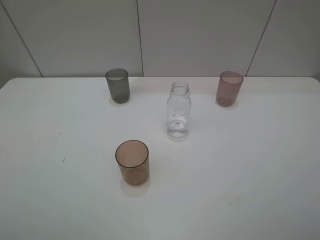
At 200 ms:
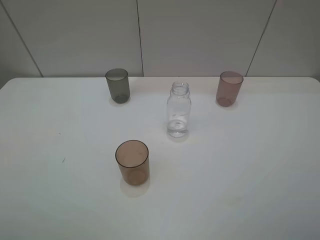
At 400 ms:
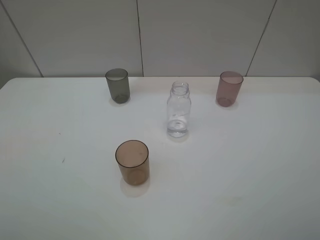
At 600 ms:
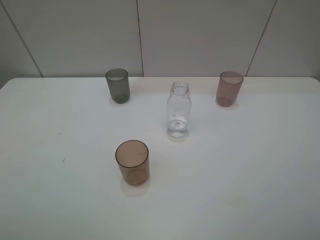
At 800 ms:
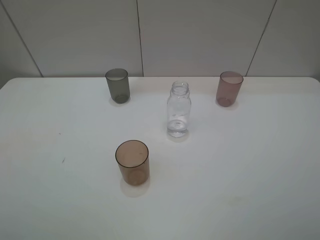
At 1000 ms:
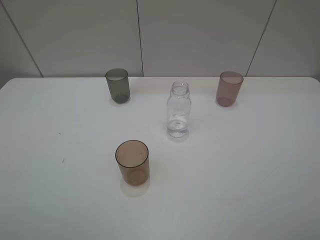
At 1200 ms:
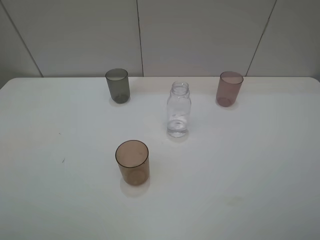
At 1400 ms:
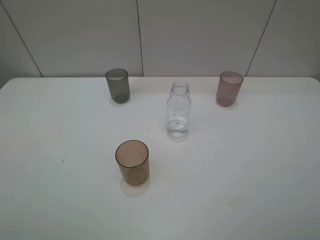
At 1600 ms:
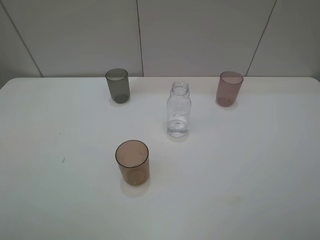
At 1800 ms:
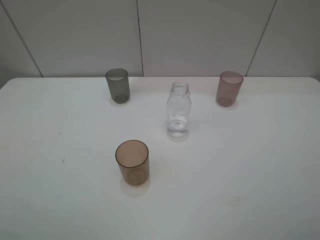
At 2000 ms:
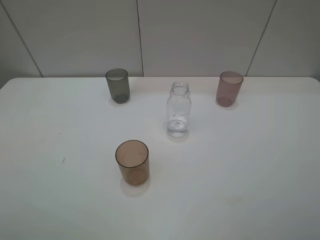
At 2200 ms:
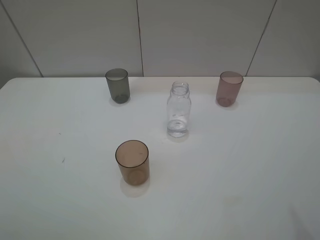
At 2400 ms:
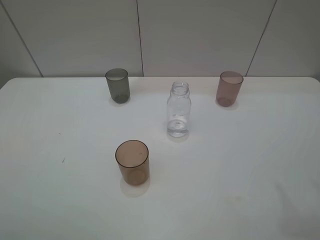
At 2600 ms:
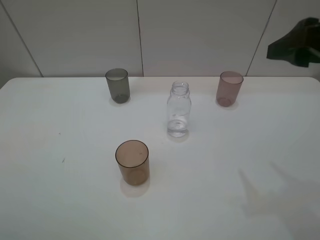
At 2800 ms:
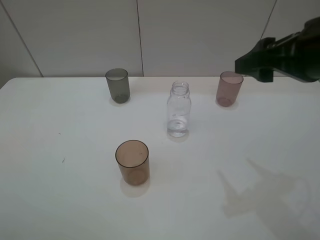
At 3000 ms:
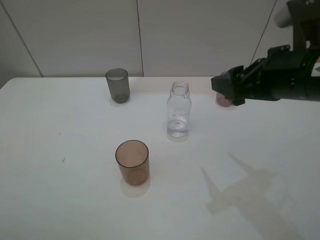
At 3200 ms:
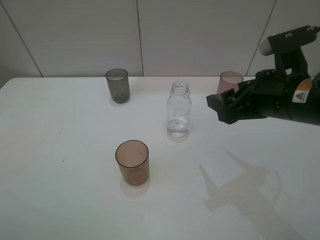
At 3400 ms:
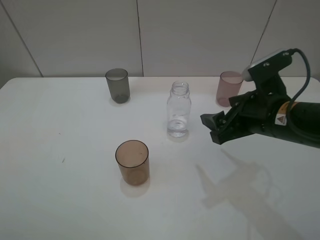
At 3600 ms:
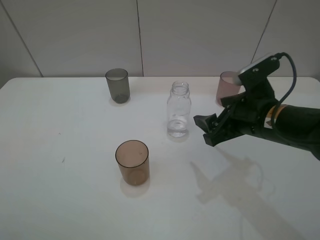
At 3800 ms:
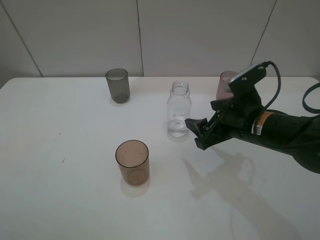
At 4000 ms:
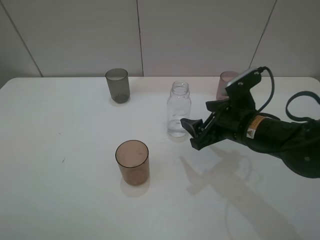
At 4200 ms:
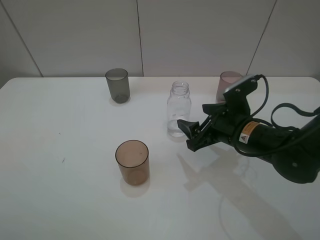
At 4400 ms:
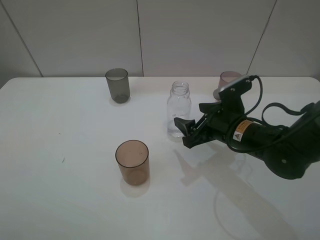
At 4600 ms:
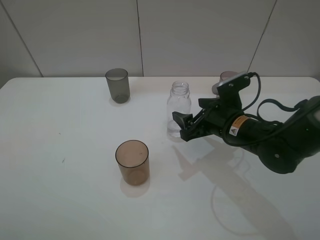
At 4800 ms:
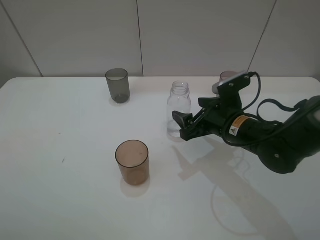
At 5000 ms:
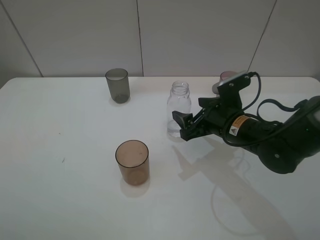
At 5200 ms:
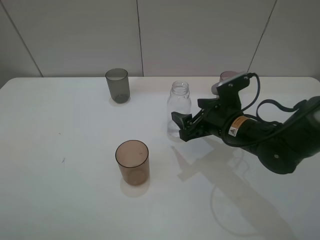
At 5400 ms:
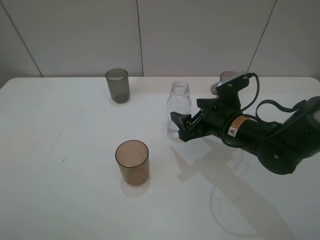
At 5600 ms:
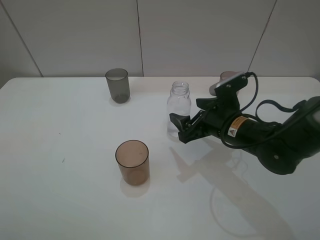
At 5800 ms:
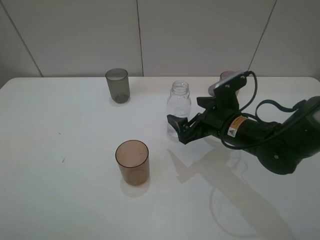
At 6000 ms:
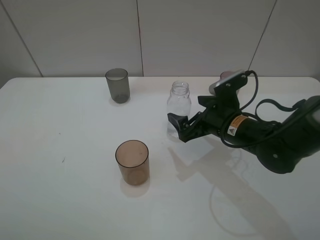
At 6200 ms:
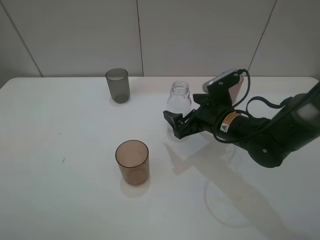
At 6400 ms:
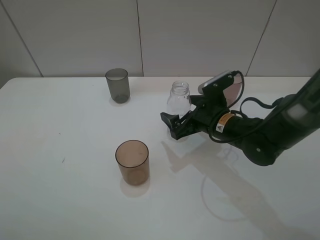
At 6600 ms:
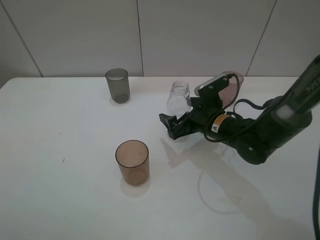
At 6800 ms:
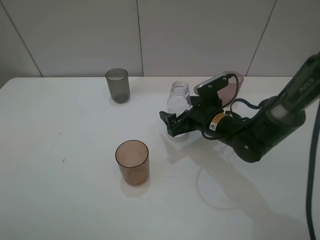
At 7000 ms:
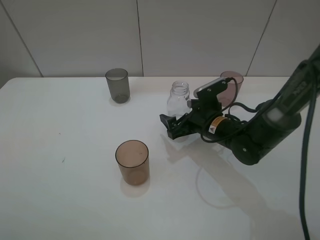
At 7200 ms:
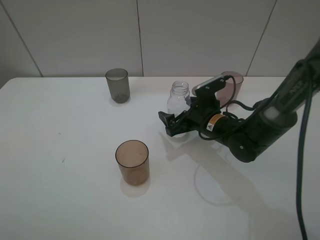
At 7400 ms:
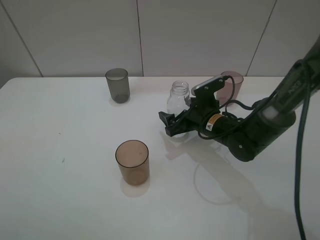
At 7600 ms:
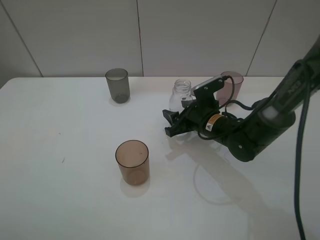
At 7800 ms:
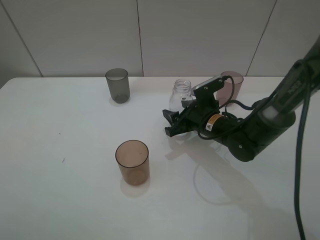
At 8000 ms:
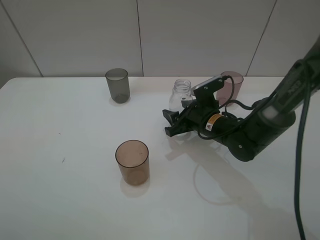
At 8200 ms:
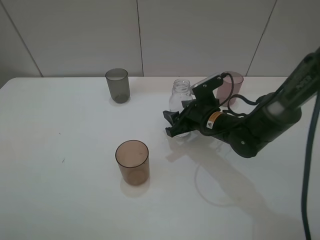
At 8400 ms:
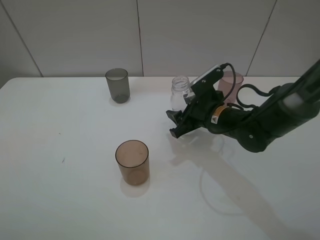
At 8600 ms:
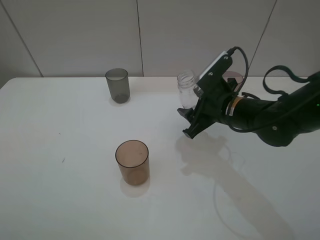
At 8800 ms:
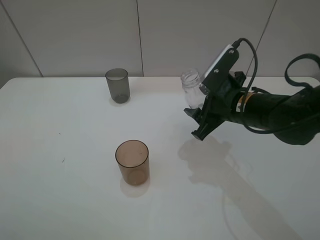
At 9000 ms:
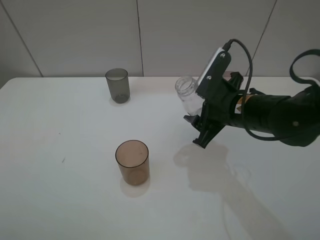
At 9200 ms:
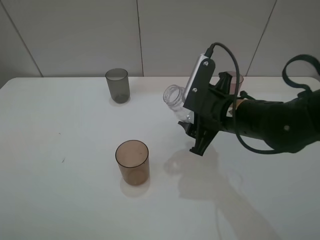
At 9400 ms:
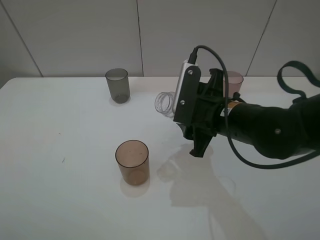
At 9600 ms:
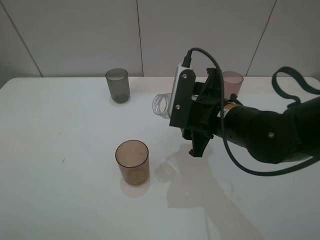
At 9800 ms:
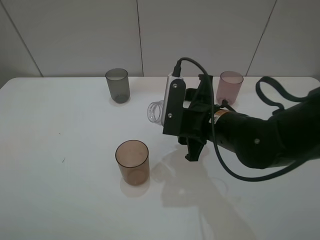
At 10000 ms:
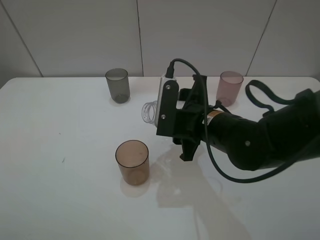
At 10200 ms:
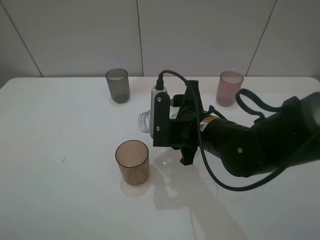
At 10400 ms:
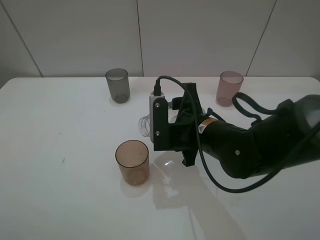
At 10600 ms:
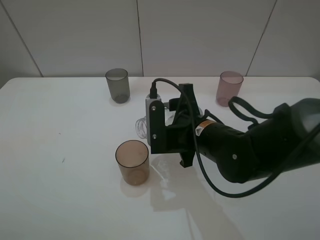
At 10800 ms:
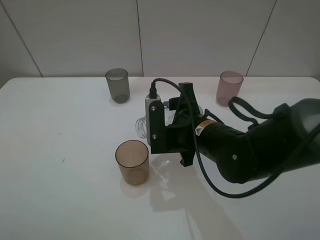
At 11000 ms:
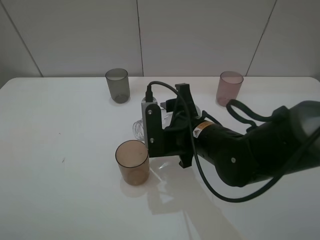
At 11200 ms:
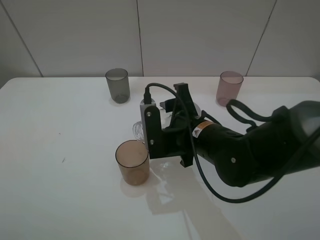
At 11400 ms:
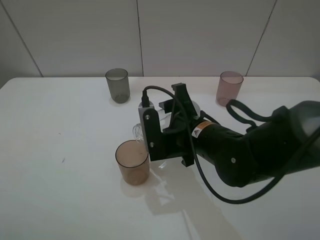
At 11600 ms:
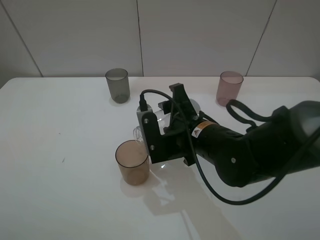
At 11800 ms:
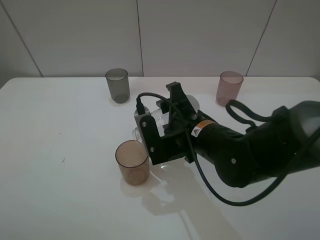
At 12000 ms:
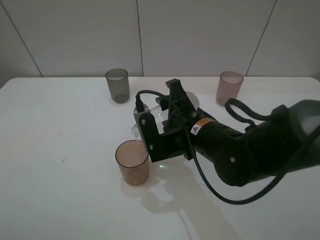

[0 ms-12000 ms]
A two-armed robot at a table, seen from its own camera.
Task of the whole recording: pick up the bottle filled with water and pour water into the middle cup of the three cups.
Step, 0 ms to 7600 ms: Grasp the transparent bottle with the right gripper.
0 ms to 1600 ms: Both grippers stay put.
1600 ms to 3000 ms: The right gripper goes roughly 25 cm forward and to the left.
3000 ms to 4400 ms: The right gripper moves downward, some 15 cm.
4400 ms to 6000 ms: The right gripper opens.
6000 ms to 7600 ms: The right gripper changes place by some 5 cm, and closes.
7600 ms to 9000 ms: The right gripper shifts roughly 10 cm upward and backward.
9000 ms to 10400 ms: The right gripper shifts roughly 5 cm to the left.
10400 ms to 12000 ms: There are only small adjustments of the grippers.

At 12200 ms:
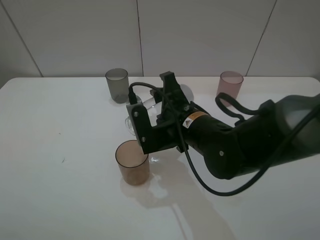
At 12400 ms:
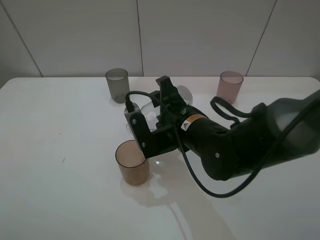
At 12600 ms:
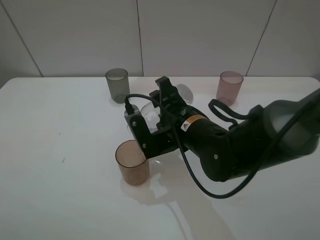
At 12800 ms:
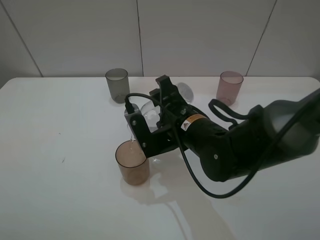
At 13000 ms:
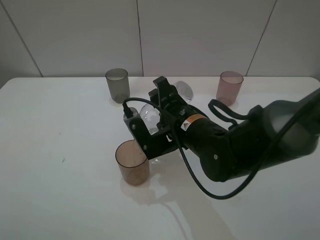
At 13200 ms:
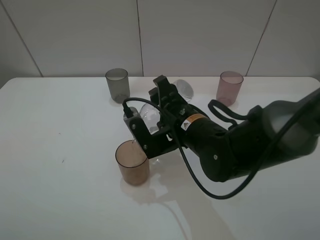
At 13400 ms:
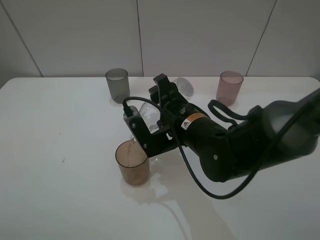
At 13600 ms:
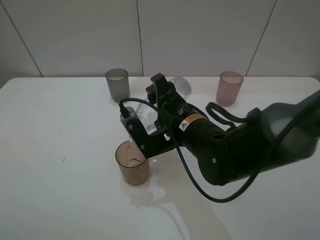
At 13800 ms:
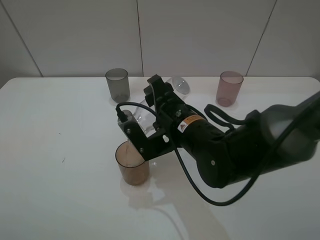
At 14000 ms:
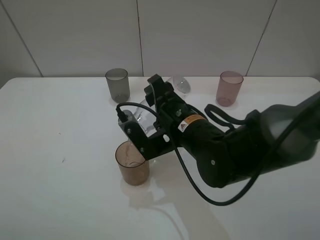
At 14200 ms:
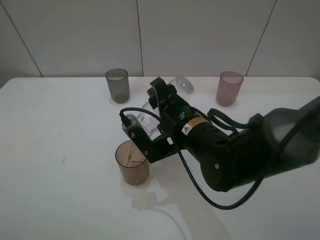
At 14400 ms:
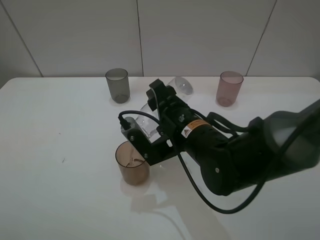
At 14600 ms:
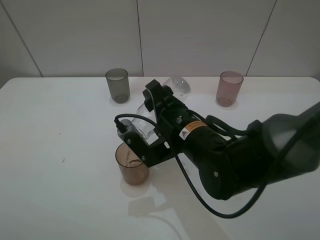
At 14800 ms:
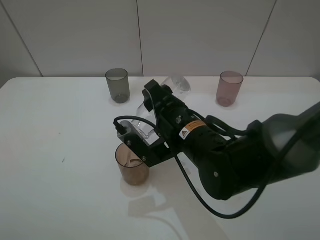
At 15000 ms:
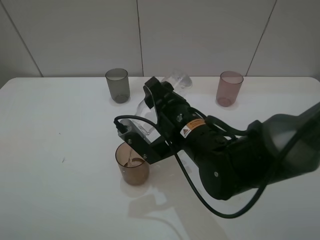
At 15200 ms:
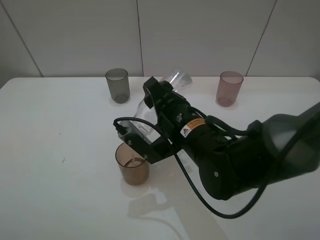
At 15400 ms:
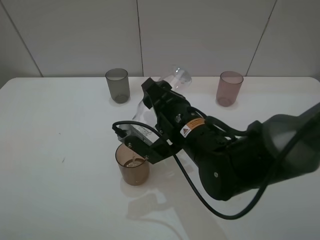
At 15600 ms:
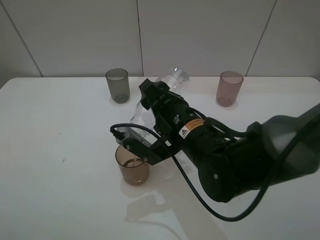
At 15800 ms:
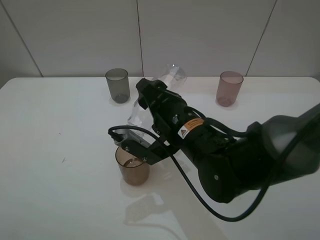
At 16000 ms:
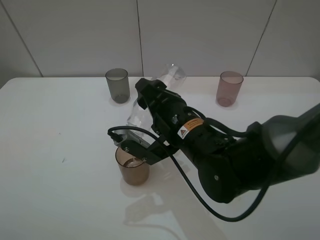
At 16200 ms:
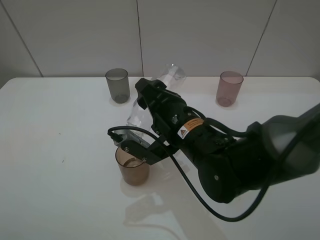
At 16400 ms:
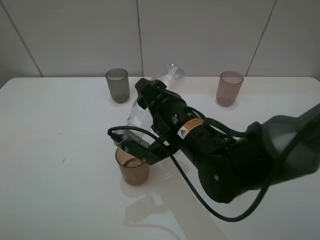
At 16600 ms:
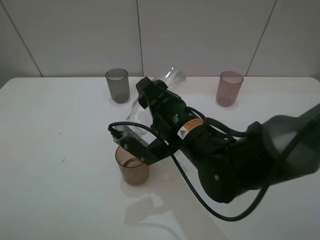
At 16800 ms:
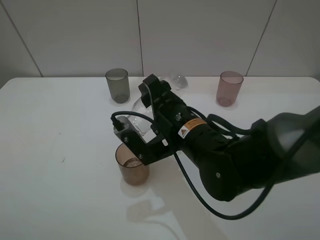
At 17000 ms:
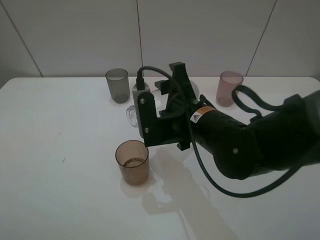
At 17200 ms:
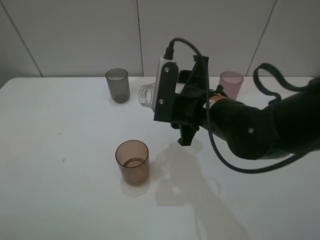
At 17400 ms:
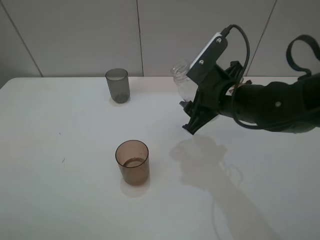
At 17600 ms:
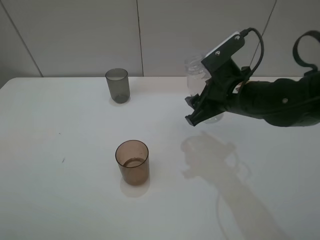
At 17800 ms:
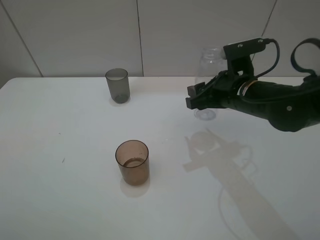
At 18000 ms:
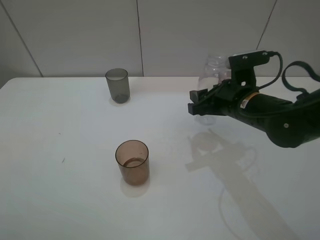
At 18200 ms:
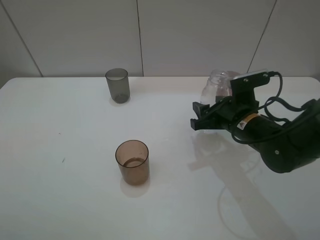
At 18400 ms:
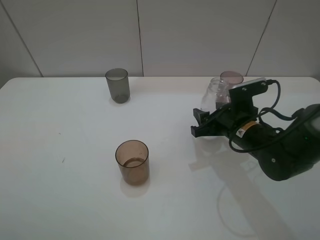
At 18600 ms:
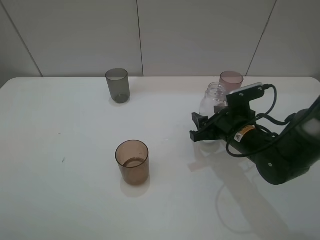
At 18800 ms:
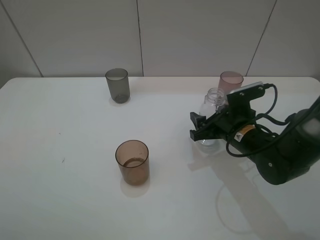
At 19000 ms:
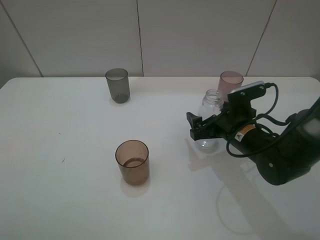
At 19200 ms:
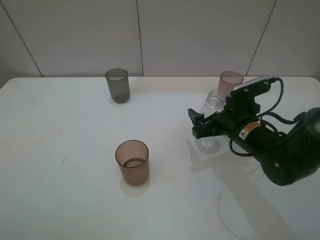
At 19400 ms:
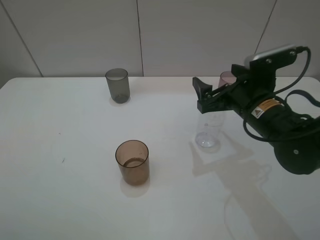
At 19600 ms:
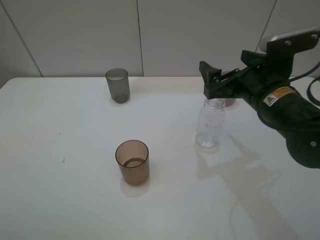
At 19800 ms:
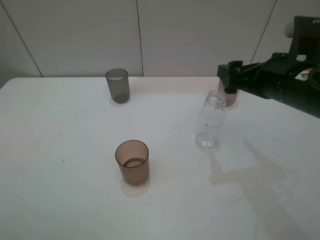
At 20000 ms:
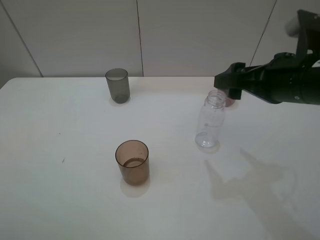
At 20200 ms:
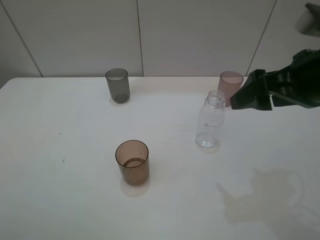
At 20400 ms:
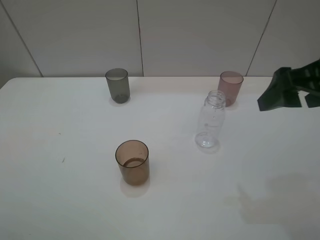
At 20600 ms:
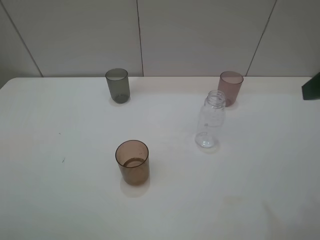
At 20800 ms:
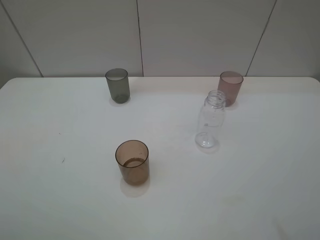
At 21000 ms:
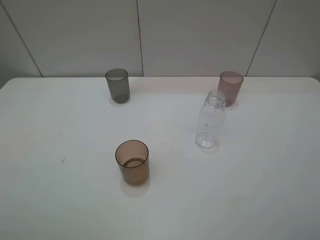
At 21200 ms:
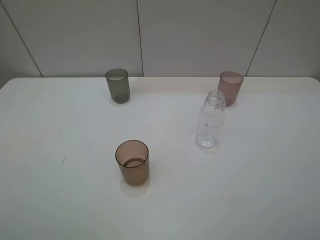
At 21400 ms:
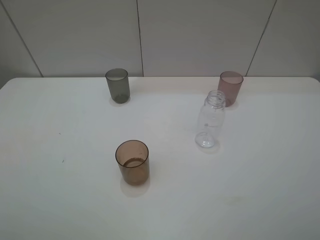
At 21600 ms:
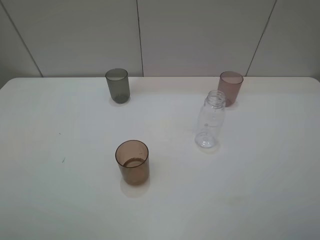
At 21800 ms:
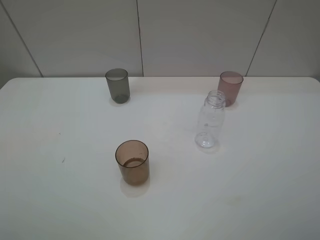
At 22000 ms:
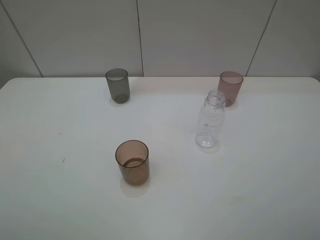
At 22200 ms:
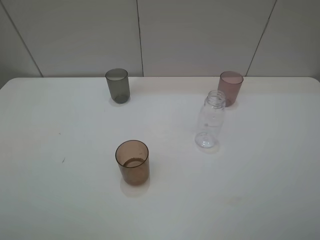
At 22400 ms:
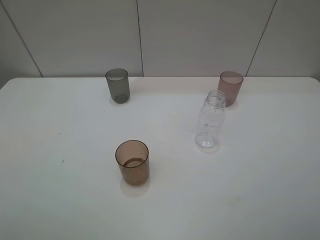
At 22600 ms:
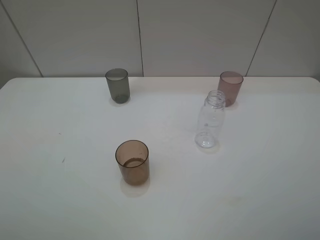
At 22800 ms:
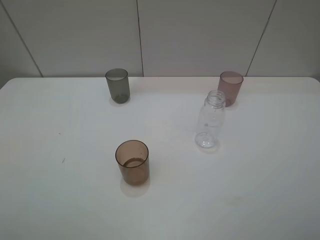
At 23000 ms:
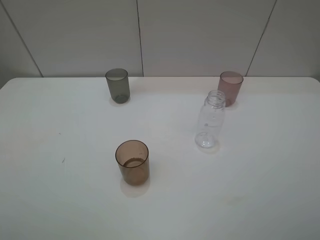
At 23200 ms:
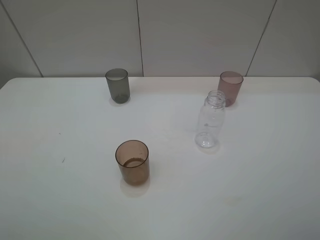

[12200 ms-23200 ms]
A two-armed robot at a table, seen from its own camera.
Task of the whole recording: pick up the bottle filled with water and pour water into the middle cup of the three cups.
Step, 12200 ms to 17200 ms: Pour water from transparent bottle tobrown cup with the right gripper.
Step, 17400 ms to 20000 ms: Place the transparent bottle with the right gripper.
12200 ms to 13800 ms: There are only small adjustments of the grippers.
13800 ms to 15400 ms: The grippers make only small movements.
17000 ms to 18400 ms: The right gripper moves to the right and downward, roughly 15 cm.
18400 ms to 20000 ms: The right gripper goes approximately 15 cm upward, and opens its fingers.
20000 ms to 21600 ms: The right gripper goes approximately 25 cm backward and to the right.
